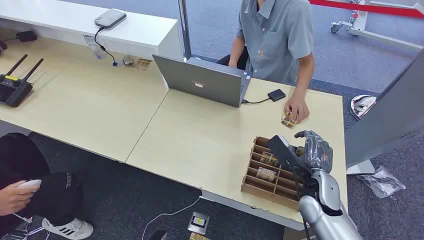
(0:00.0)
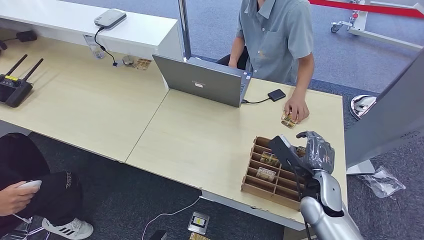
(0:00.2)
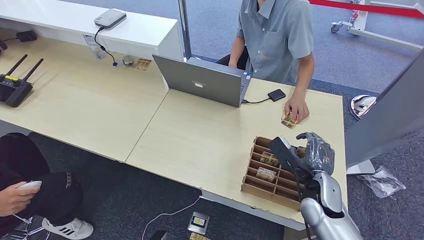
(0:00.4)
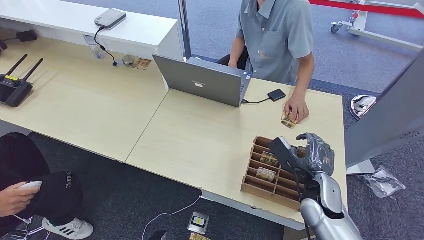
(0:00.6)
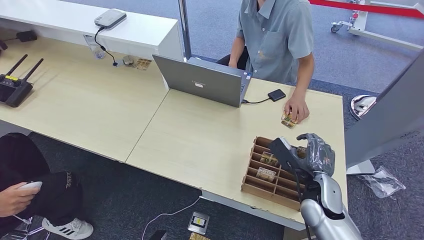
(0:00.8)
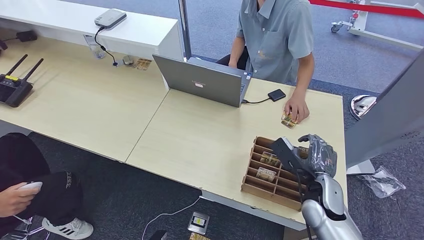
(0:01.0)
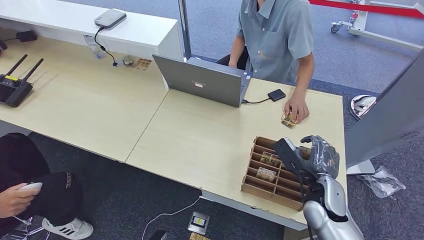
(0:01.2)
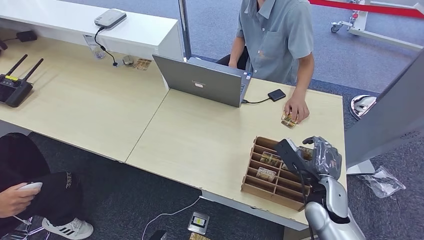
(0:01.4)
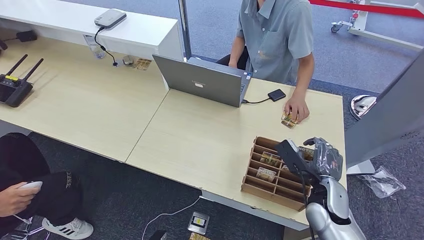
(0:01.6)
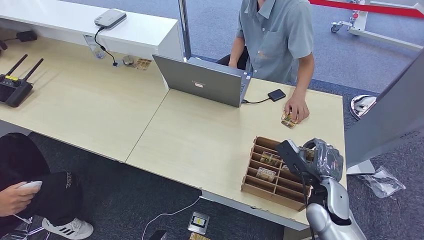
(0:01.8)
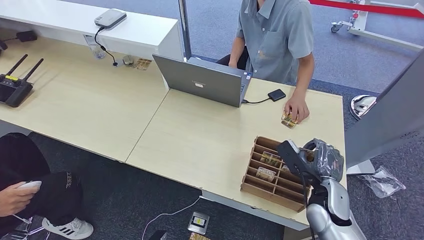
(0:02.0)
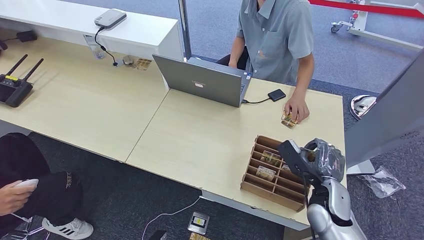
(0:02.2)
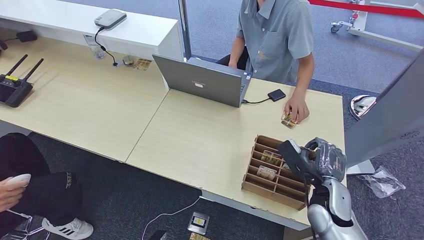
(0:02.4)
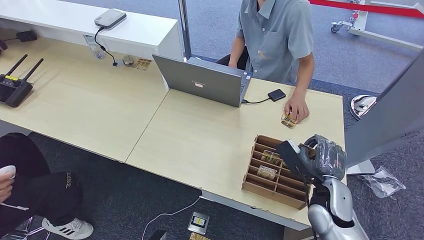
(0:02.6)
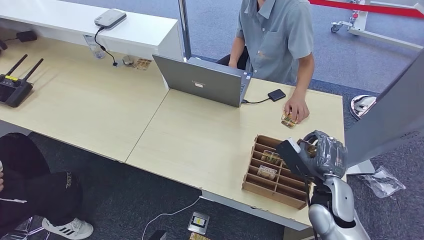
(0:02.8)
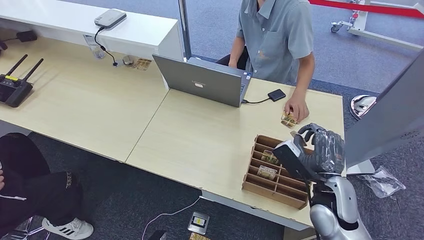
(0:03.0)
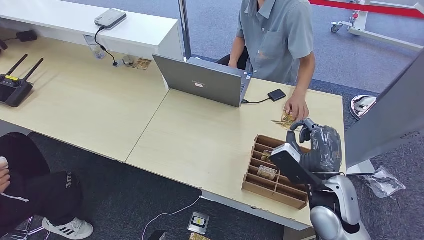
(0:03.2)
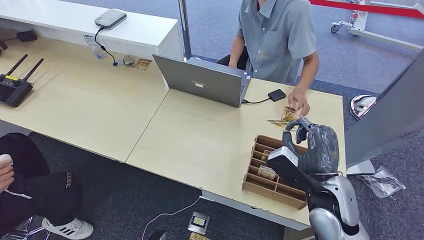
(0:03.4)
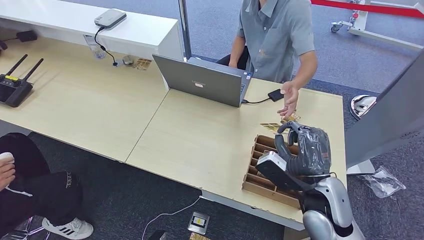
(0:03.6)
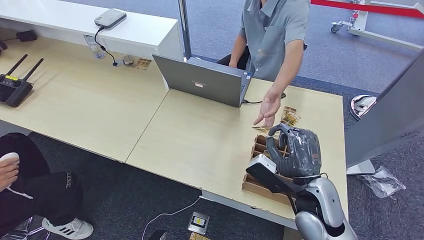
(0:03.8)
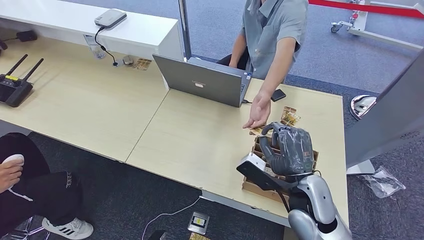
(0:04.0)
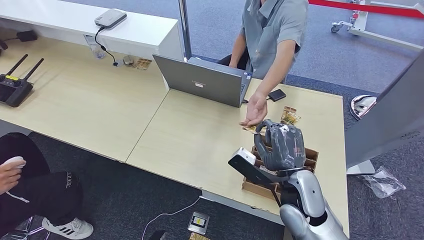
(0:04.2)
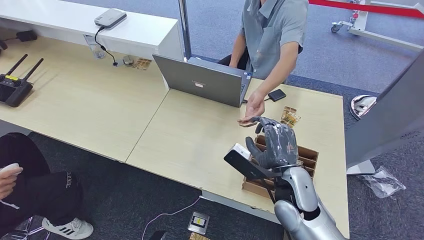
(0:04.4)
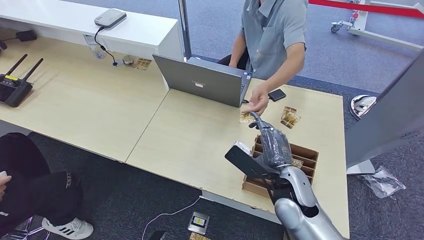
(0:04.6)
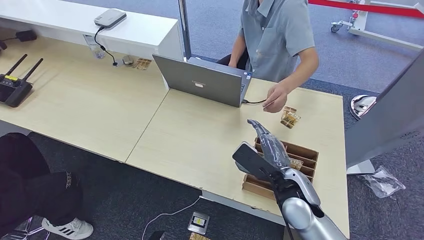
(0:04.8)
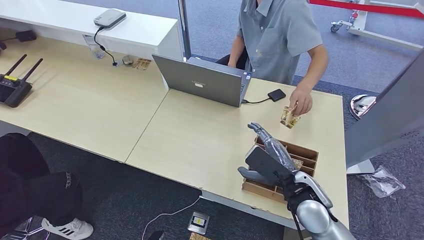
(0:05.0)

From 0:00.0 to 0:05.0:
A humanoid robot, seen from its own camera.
Step, from 0:00.0 to 0:03.2: Pick up the key card from the card box.
Step, from 0:03.4 to 0:05.0: Hand the key card to the target.
From 0:01.6 to 0:03.4: The right hand travels upward by some 5 cm.
